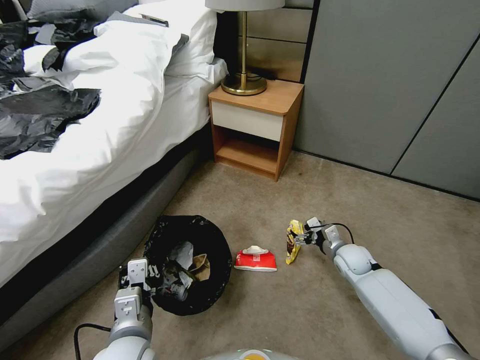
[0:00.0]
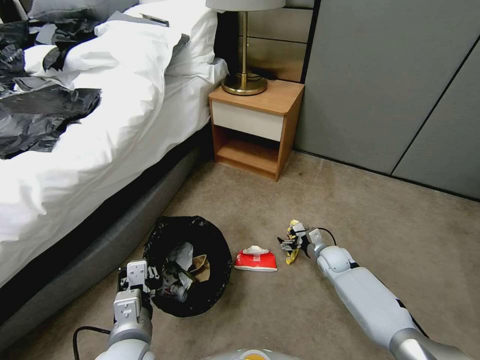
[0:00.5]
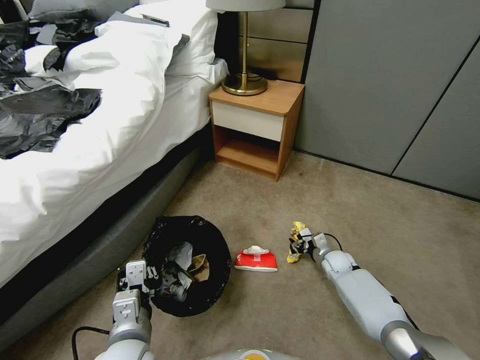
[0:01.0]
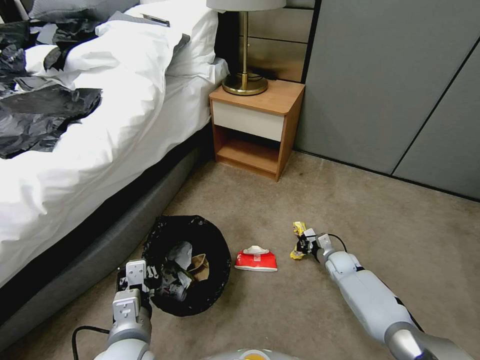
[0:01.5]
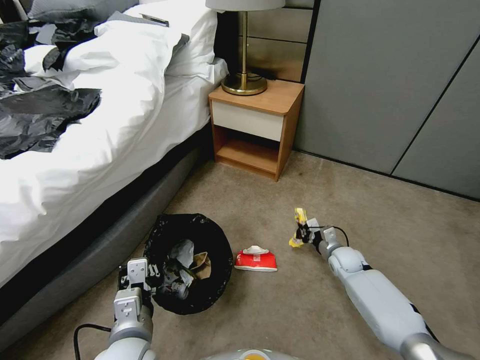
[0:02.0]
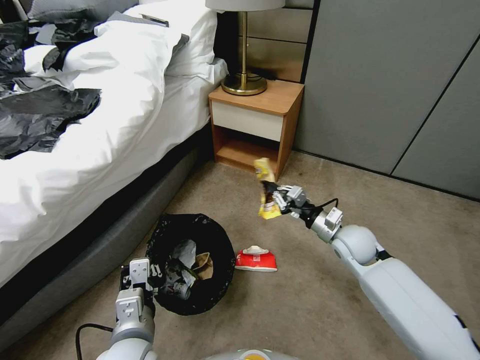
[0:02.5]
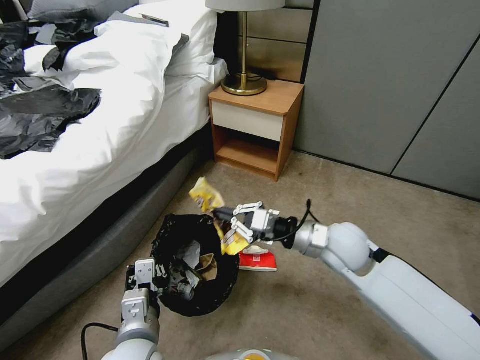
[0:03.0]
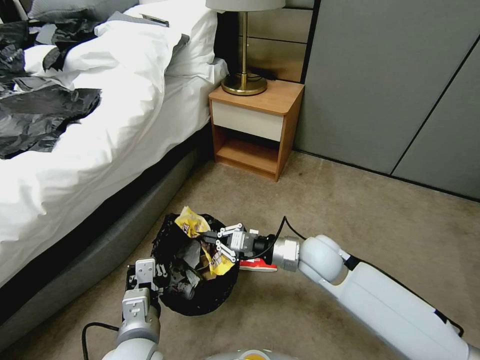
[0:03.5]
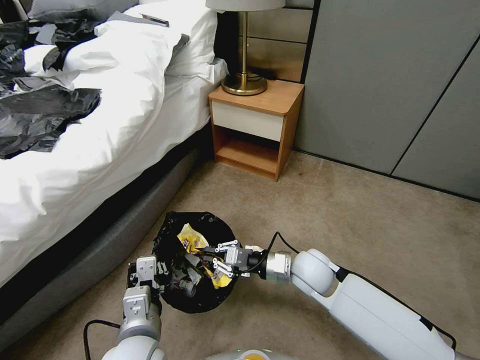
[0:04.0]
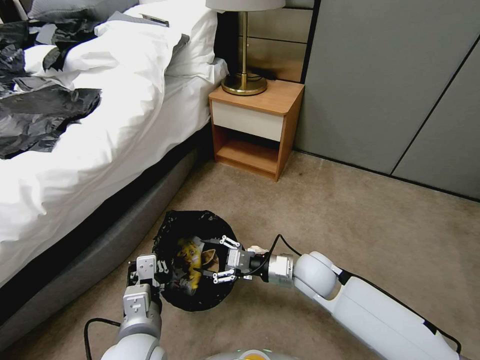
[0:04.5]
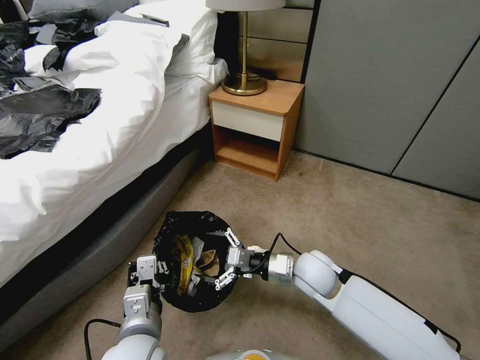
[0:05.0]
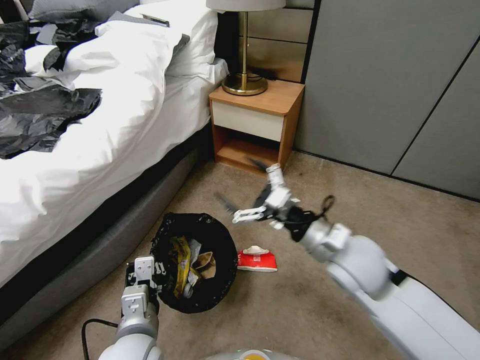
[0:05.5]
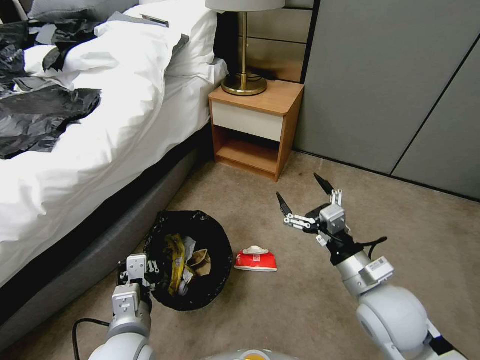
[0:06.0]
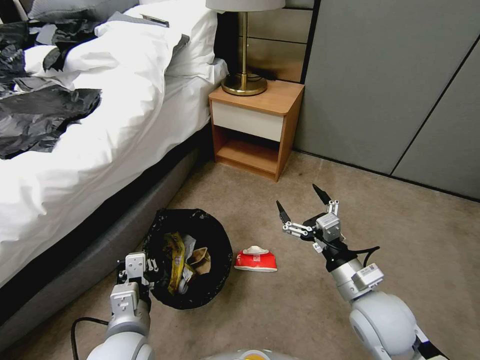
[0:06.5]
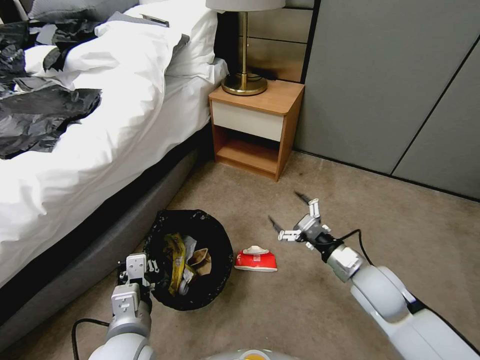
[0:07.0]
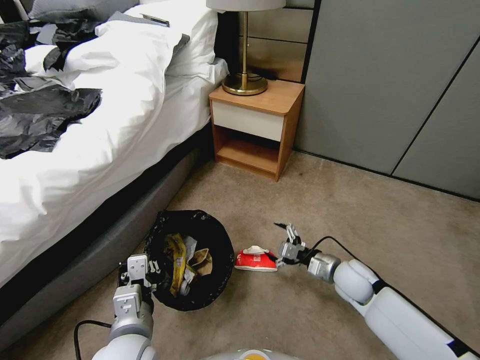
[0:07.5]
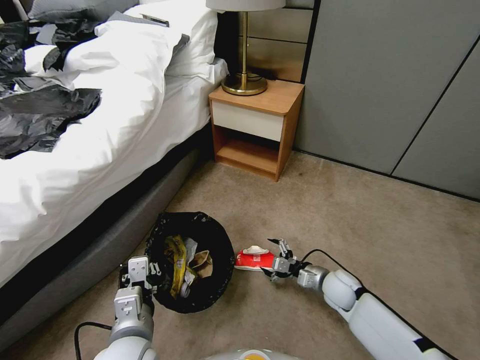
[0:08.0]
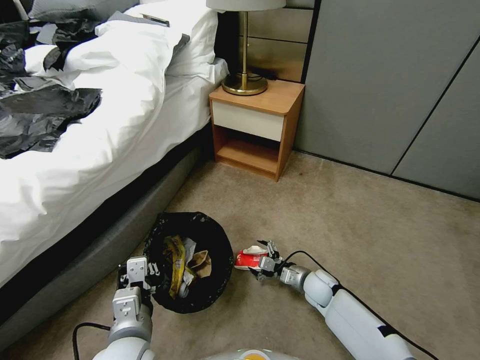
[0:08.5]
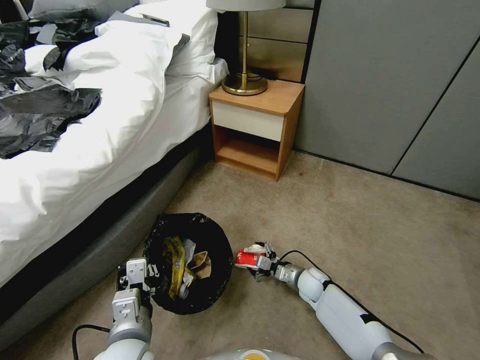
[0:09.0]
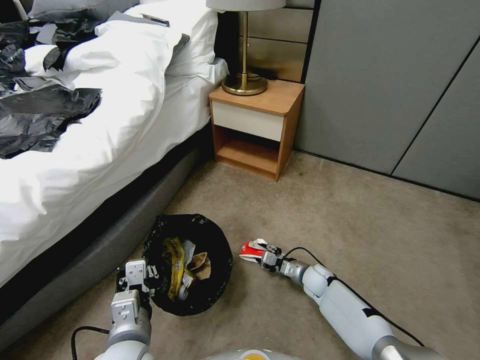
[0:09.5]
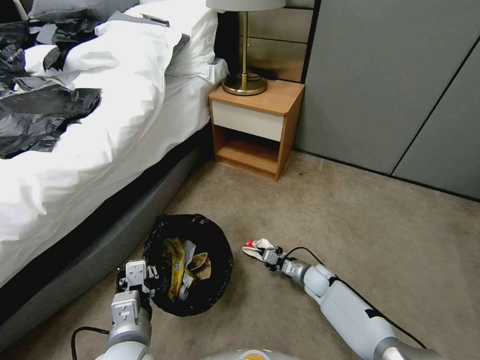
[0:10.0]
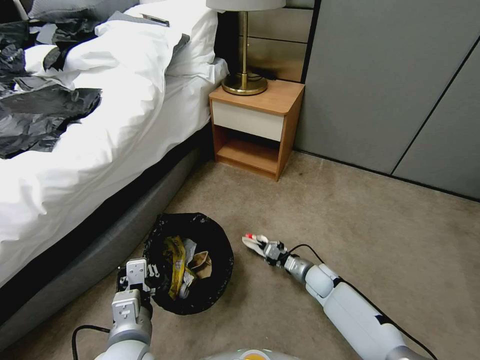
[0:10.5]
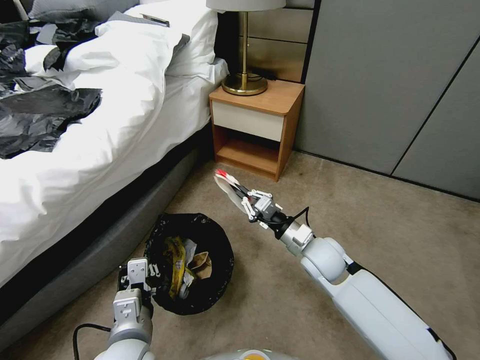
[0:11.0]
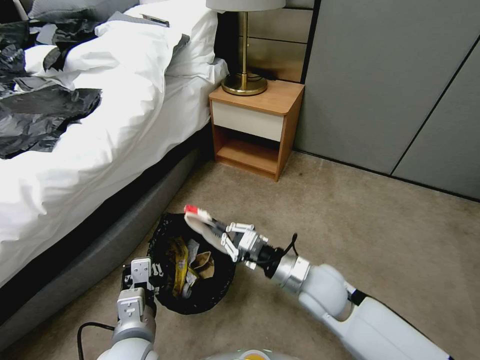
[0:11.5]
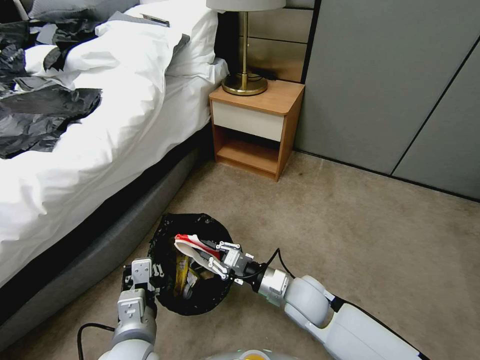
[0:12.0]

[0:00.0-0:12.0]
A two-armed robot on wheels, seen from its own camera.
Task of the whole recording: Pick up the trash bin, then pick up the garbage from the floor and place it into the trash bin.
0:00.0 to 0:02.0: The right gripper closes.
0:02.0 to 0:04.0: The right gripper is displaced to the left, upward and backward by about 25 cm.
0:04.0 to 0:06.0: The right gripper heads backward, upward and to the right, covering roughly 15 cm, and opens up.
0:06.0 to 0:08.0: The right gripper travels downward and forward by roughly 25 cm.
0:08.0 to 0:10.0: The right gripper shifts approximately 5 cm downward, and closes its fingers.
0:10.0 to 0:12.0: The right gripper heads upward, to the left and backward, covering approximately 25 cm.

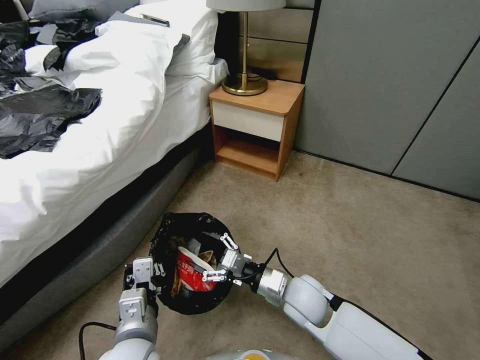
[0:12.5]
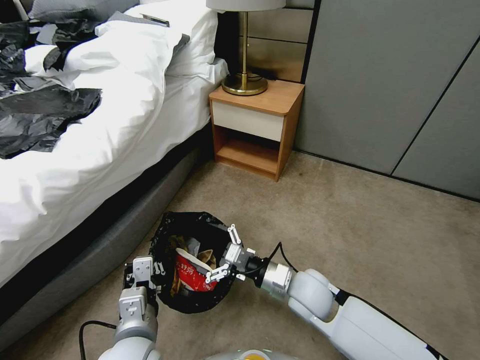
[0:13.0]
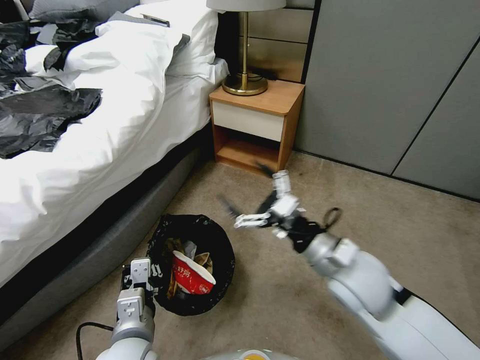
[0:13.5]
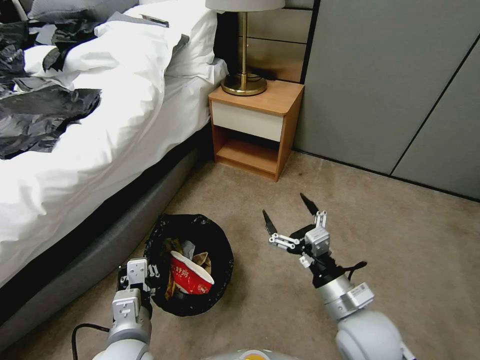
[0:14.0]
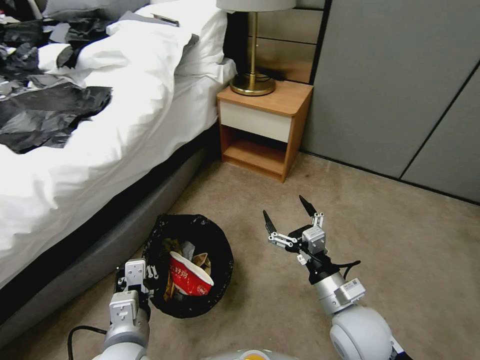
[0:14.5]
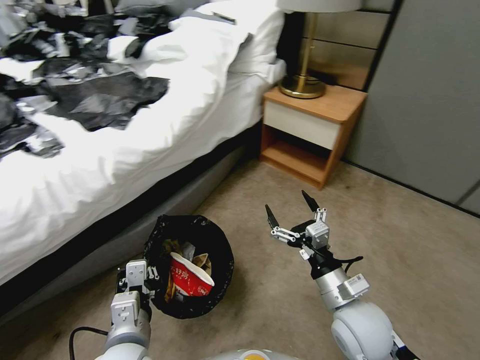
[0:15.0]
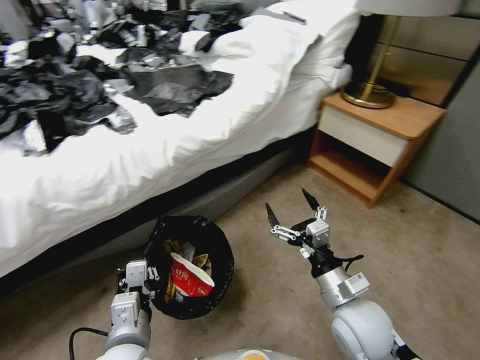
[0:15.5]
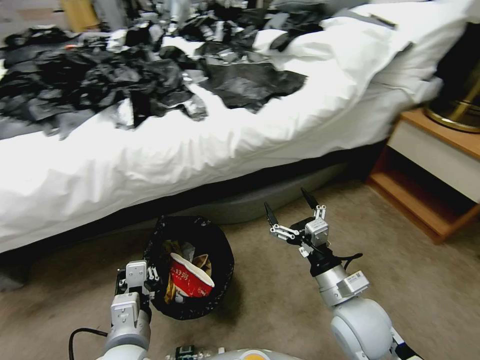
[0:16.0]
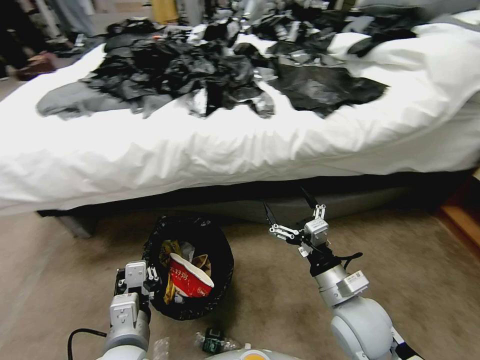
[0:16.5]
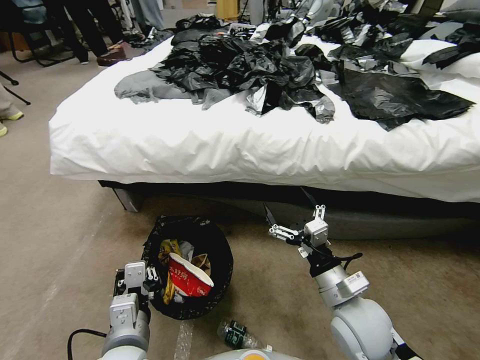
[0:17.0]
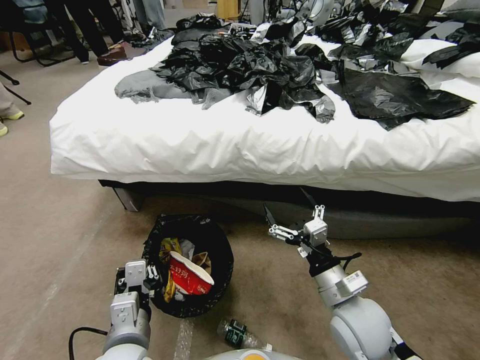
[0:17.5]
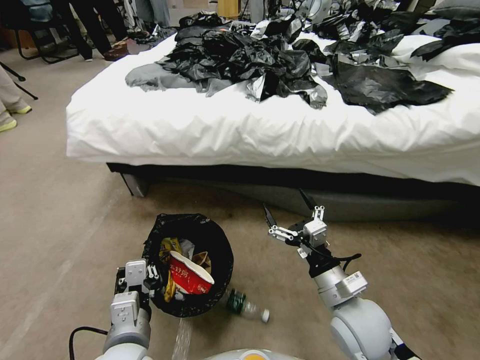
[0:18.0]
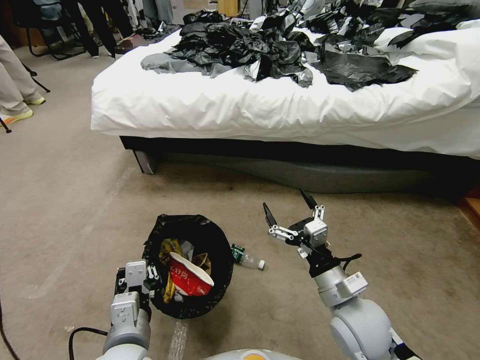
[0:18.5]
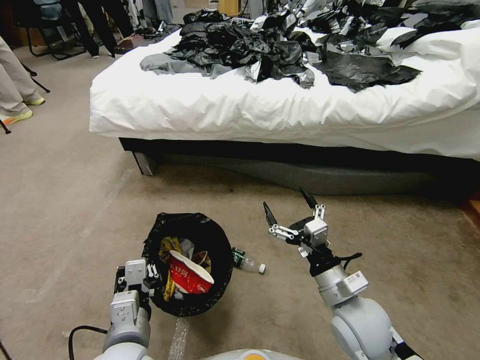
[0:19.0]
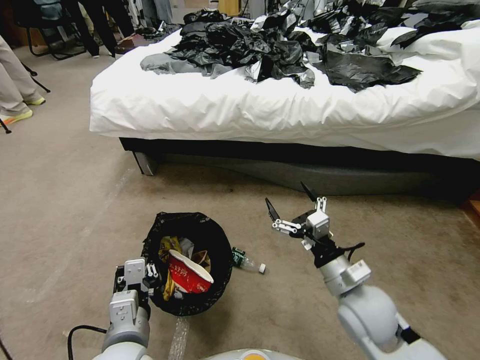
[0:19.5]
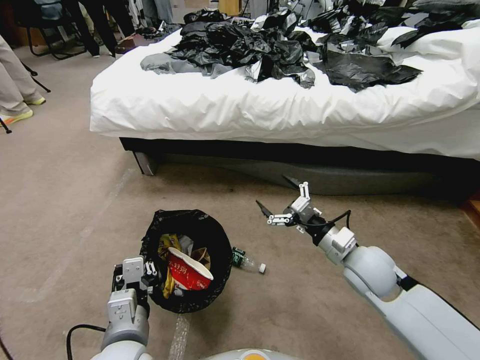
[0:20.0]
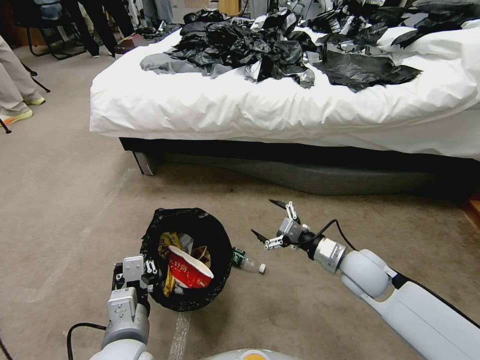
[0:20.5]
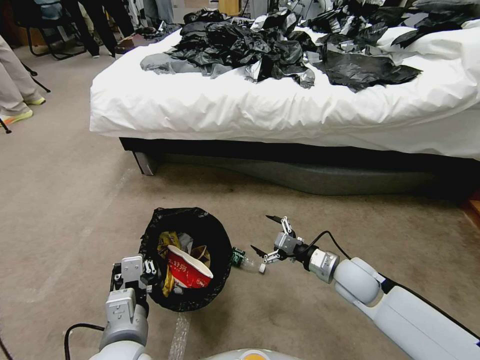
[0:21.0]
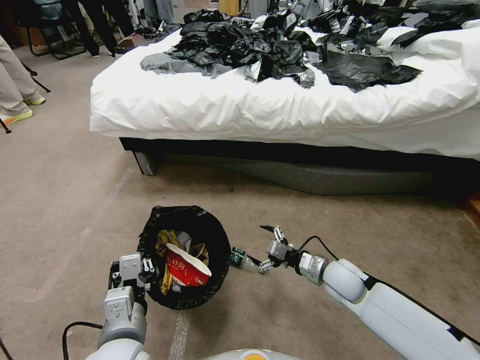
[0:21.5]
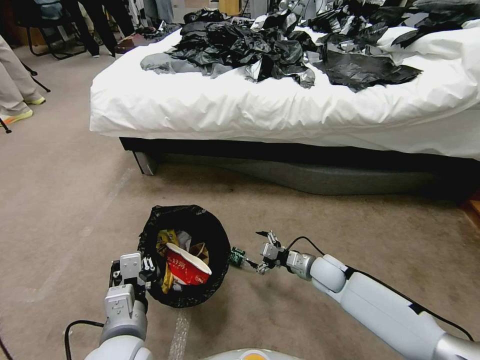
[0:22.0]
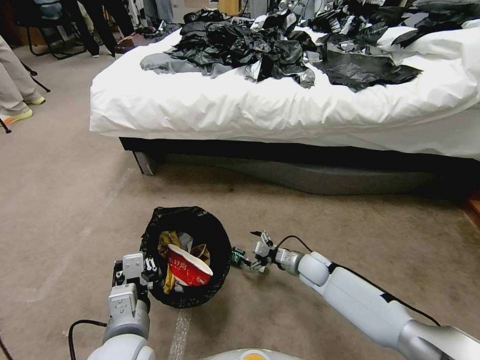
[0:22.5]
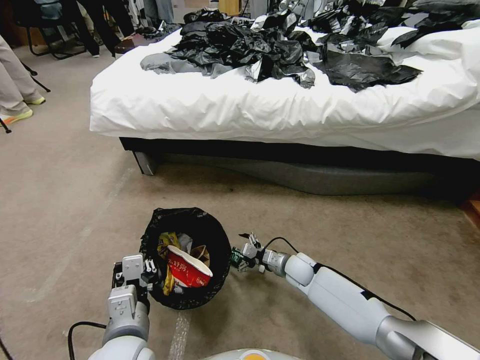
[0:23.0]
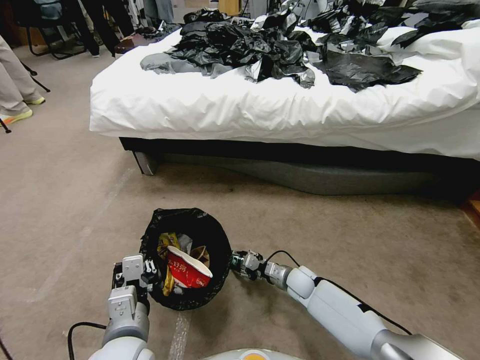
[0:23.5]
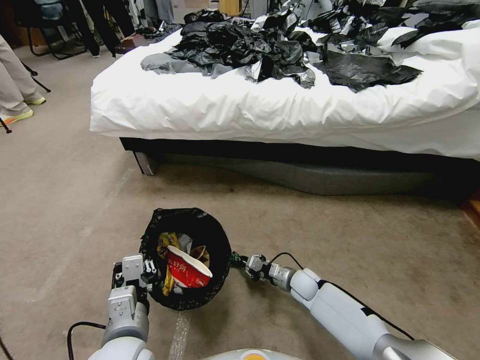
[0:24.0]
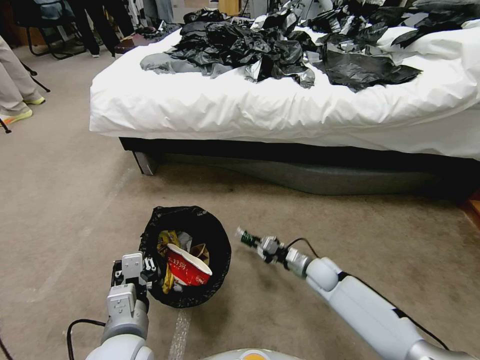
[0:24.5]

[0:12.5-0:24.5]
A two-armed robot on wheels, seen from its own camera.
Task of the whole recording: Pick up the trash bin, then pick up the garbage from the floor and place it into the trash bin.
0:12.5 to 0:14.5: The right gripper moves to the right, backward and upward, about 10 cm.
0:18.5 to 0:20.5: The right gripper is displaced forward and to the right by roughly 10 cm.
0:20.5 to 0:22.5: The right gripper shifts some 20 cm downward and forward.
0:22.5 to 0:24.5: The right gripper closes up.

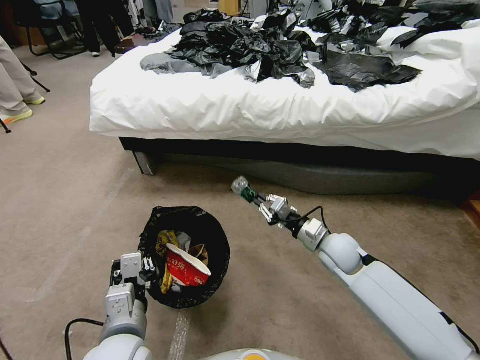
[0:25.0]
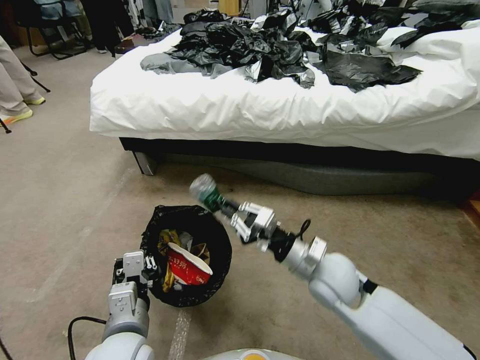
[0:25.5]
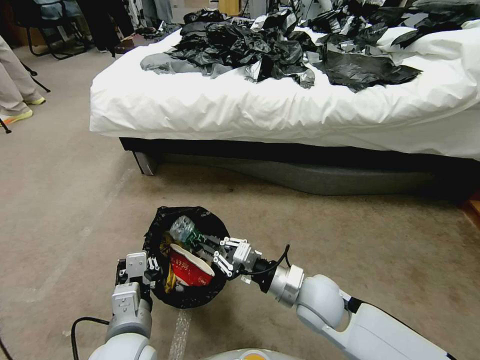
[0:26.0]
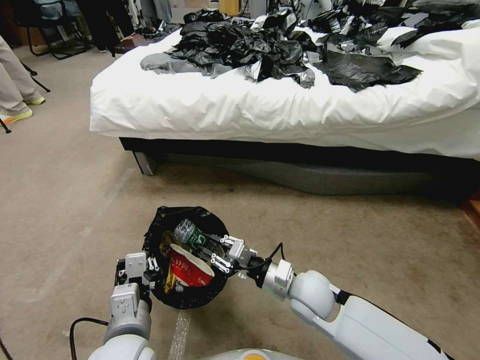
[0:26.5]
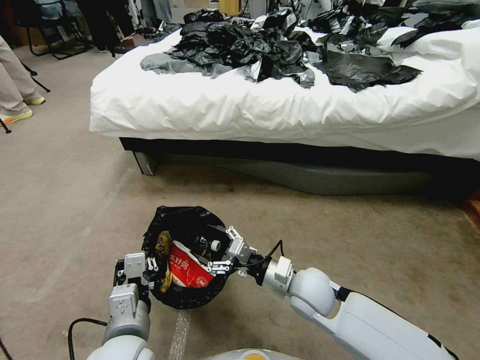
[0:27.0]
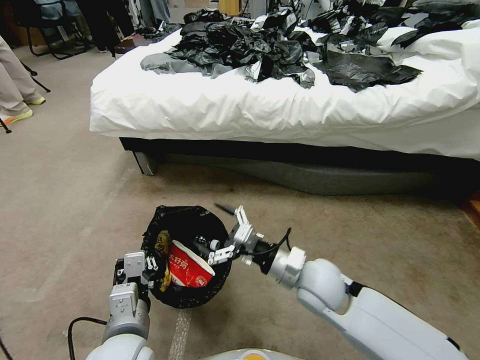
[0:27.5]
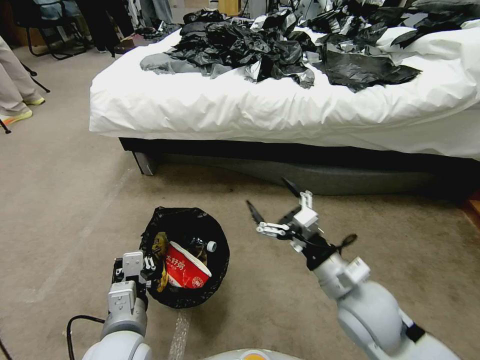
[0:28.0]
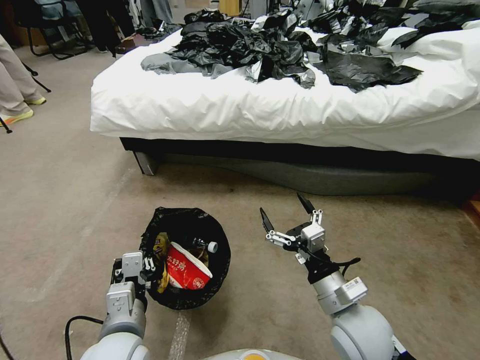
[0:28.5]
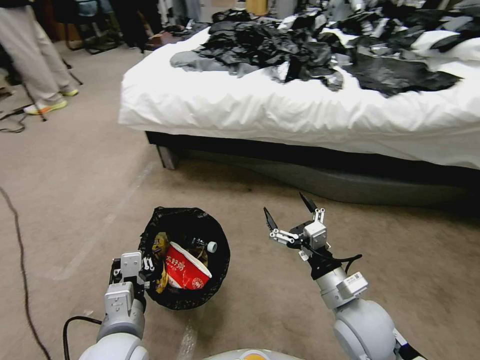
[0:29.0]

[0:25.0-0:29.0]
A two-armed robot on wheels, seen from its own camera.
Task of the whole recording: Pick up the trash bin, then pick up the garbage from the floor and place it into the trash bin.
0:25.0 to 0:27.0: The right gripper moves to the left and backward, approximately 15 cm, and opens.
0:27.0 to 0:29.0: The right gripper shifts roughly 10 cm to the right and backward.
